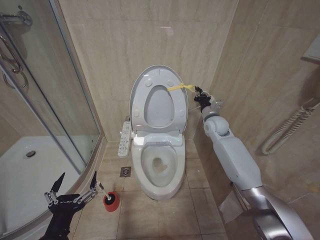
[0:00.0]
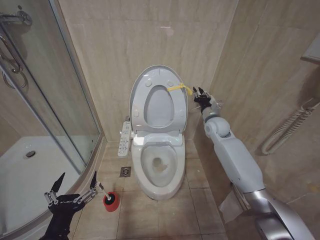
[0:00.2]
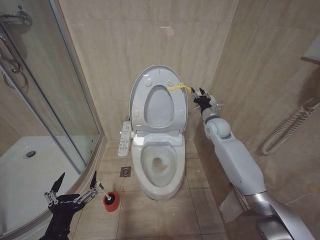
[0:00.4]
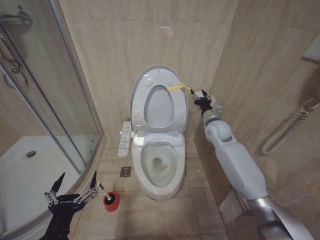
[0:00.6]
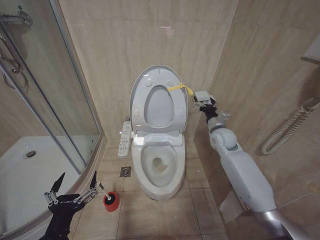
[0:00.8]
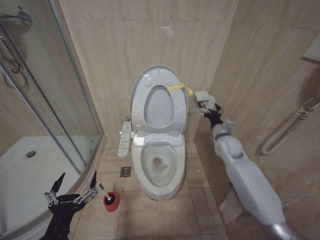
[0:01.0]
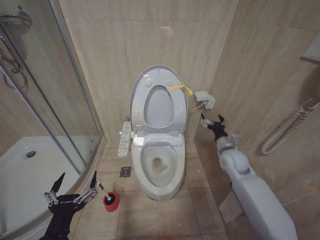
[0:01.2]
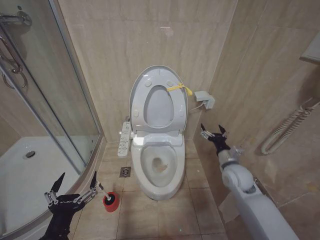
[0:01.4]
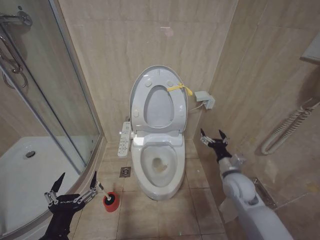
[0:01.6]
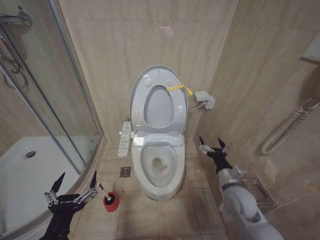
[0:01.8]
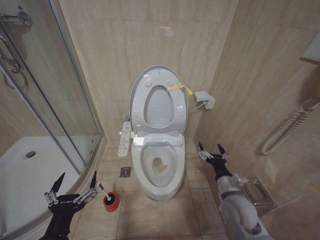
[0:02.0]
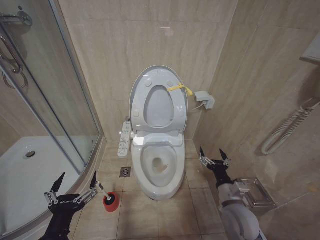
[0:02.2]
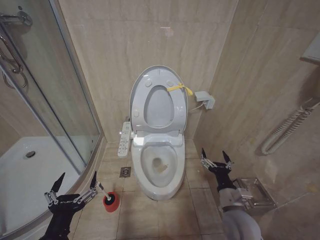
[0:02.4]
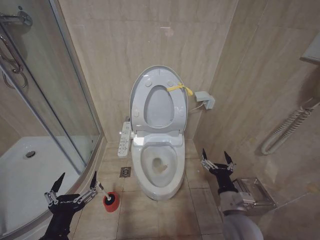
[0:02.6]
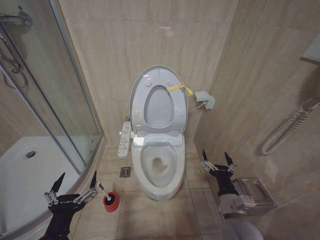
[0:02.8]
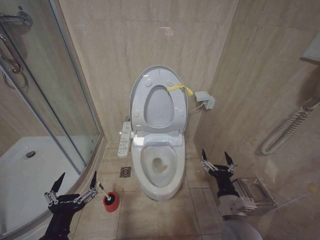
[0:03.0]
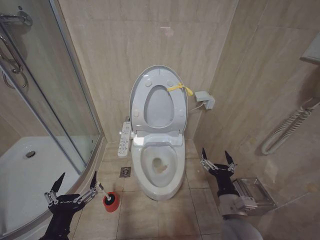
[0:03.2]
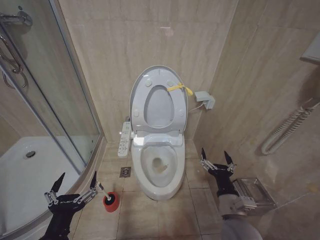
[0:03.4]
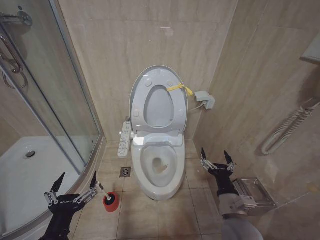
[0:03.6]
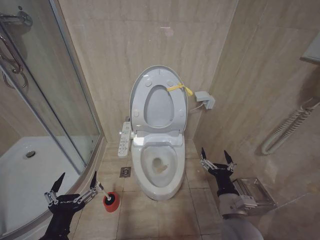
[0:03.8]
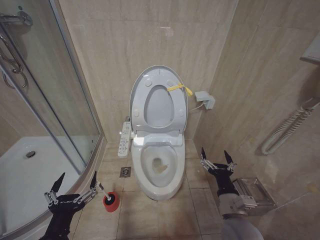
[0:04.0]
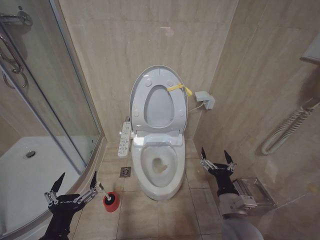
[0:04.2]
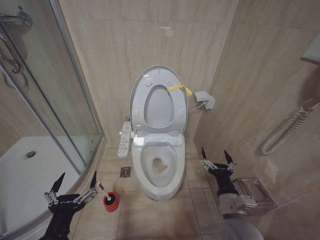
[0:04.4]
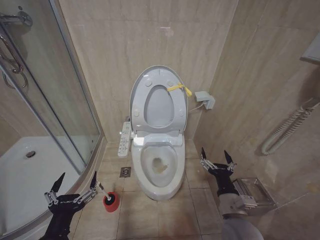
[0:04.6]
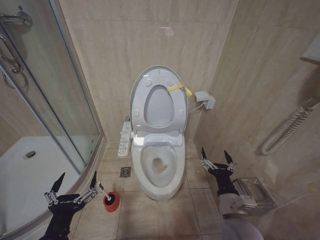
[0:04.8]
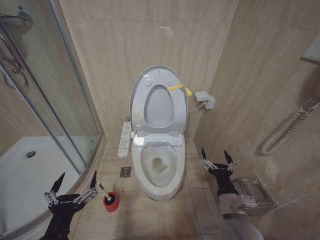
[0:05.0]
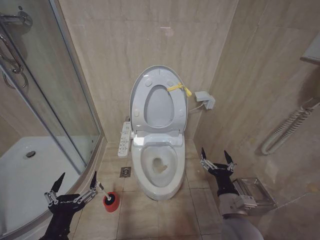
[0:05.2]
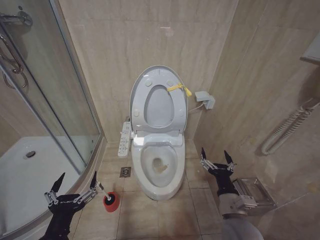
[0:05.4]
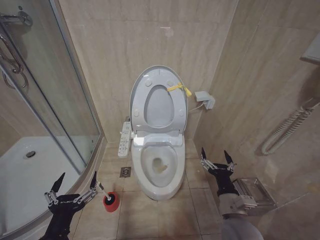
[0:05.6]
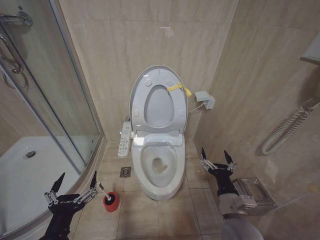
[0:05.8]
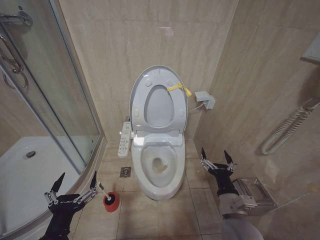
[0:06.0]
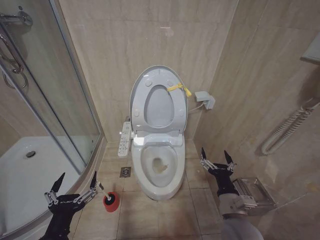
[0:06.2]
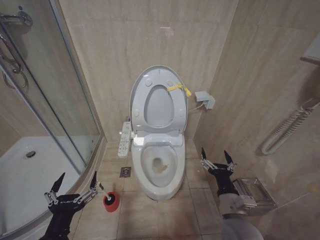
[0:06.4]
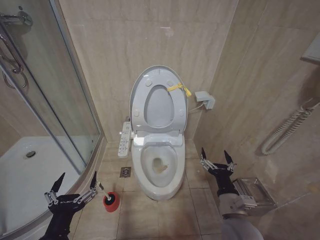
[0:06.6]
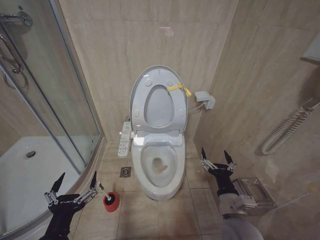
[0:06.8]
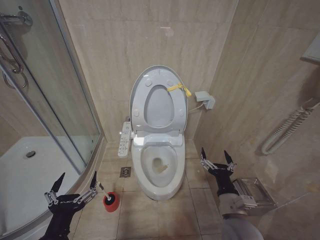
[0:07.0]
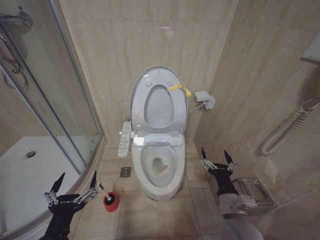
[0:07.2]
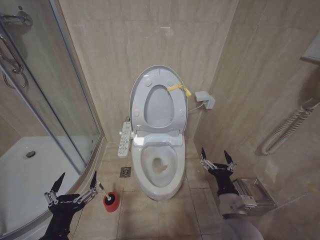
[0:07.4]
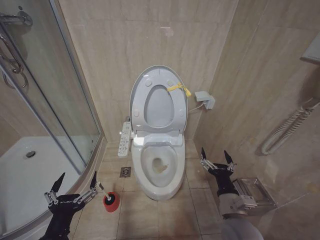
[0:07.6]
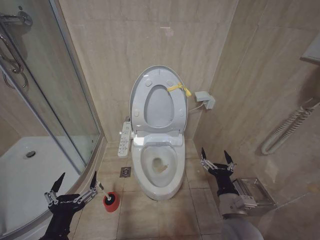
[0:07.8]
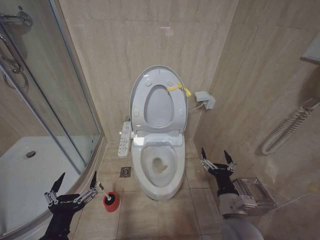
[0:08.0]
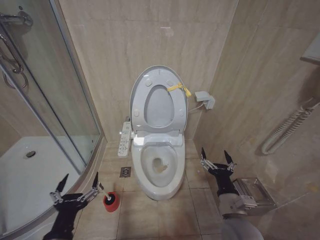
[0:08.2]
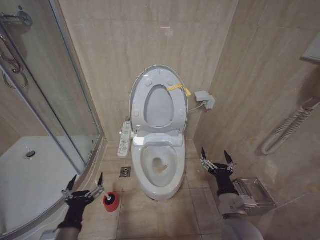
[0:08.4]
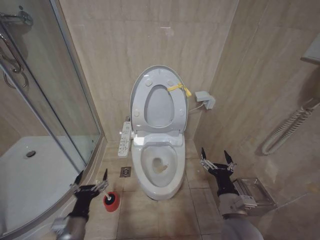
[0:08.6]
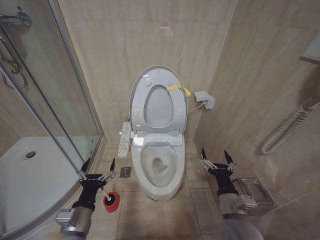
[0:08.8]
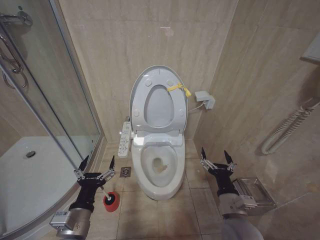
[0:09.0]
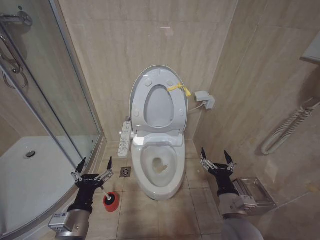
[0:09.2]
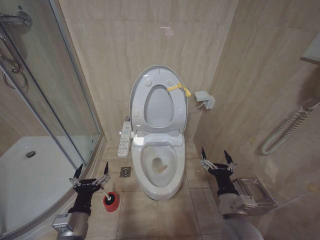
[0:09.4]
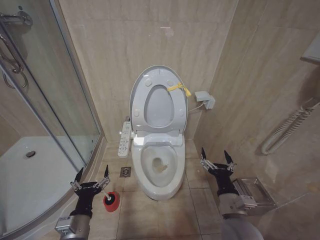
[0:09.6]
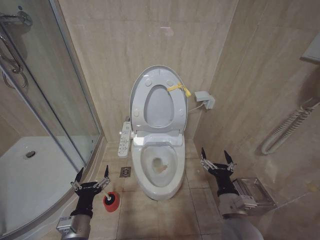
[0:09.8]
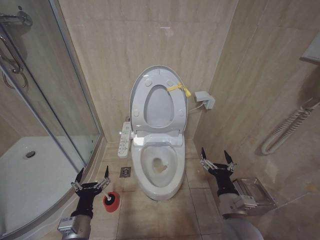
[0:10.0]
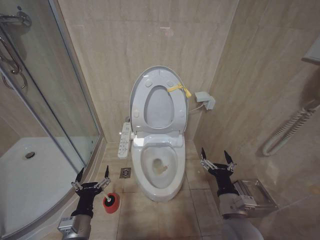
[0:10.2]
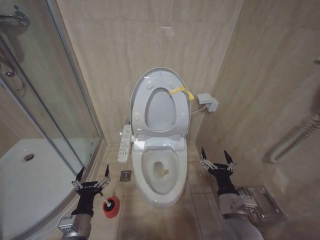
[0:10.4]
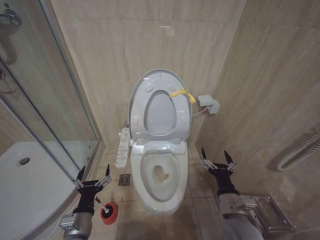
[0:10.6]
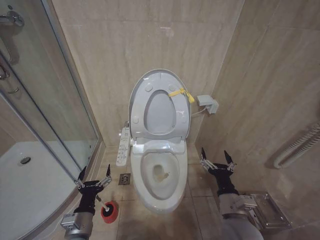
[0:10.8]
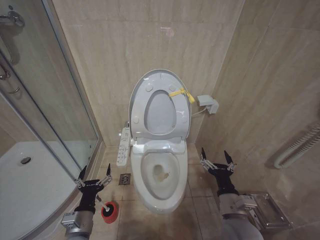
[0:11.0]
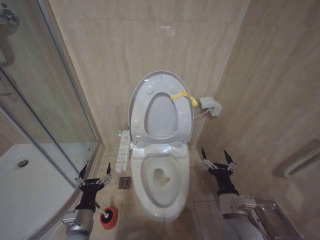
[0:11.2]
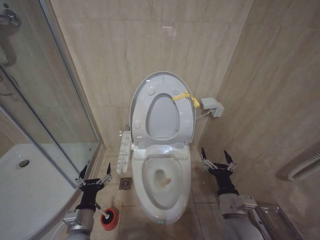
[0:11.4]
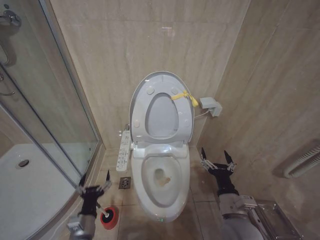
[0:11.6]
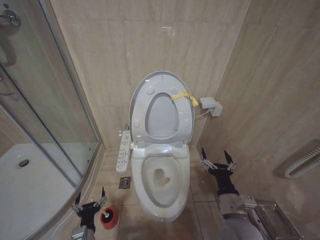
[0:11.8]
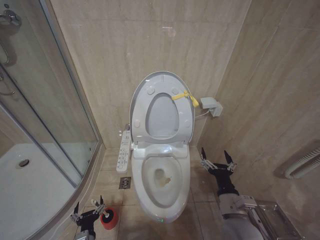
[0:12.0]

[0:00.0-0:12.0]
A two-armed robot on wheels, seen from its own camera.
Task of the whole recording: Open the toilet lid, clean the toilet bowl with a toilet brush, close the toilet lid, and flush.
0:00.0 to 0:01.6: The right gripper shifts approximately 25 cm backward and downward, and opens up.
0:01.6 to 0:03.0: The right gripper travels backward and to the left by roughly 15 cm.
0:03.0 to 0:07.6: Both grippers stay about where they are.
0:07.6 to 0:09.0: The left gripper travels forward by approximately 10 cm.
0:09.0 to 0:10.4: The left gripper travels downward by roughly 5 cm.
0:10.4 to 0:12.0: The left gripper is displaced downward by approximately 15 cm.

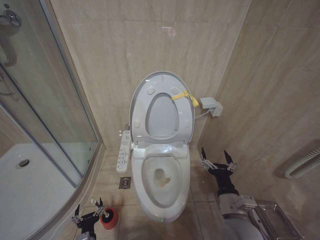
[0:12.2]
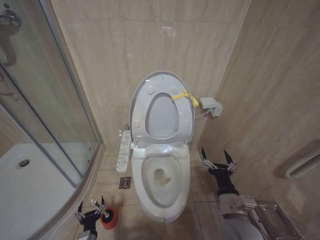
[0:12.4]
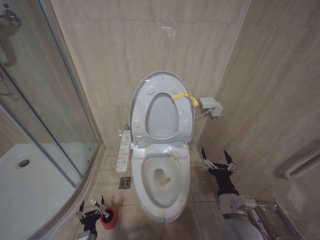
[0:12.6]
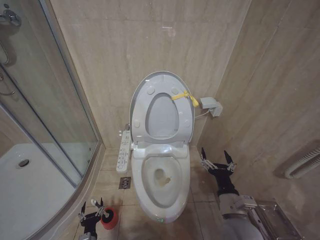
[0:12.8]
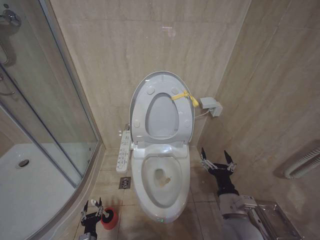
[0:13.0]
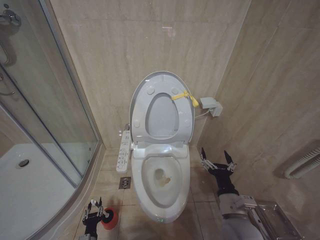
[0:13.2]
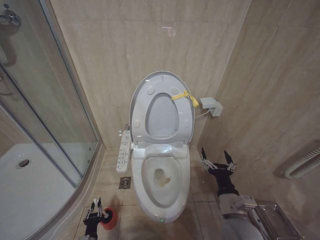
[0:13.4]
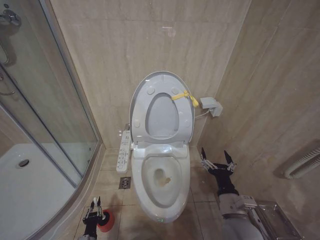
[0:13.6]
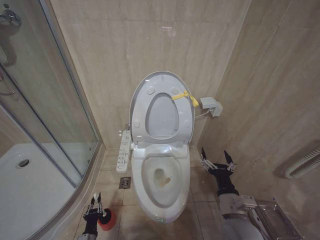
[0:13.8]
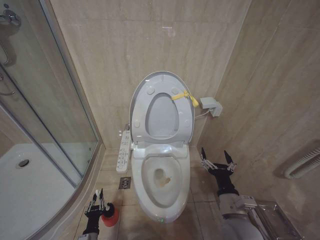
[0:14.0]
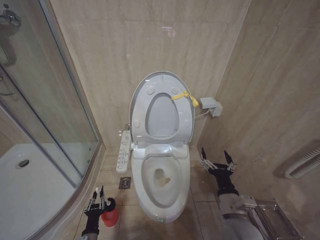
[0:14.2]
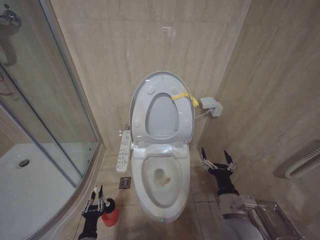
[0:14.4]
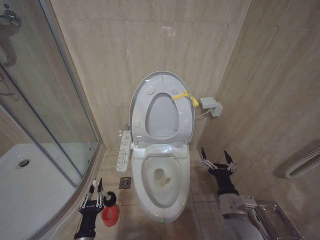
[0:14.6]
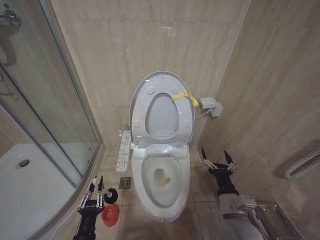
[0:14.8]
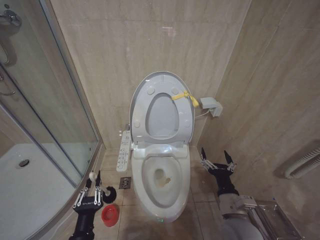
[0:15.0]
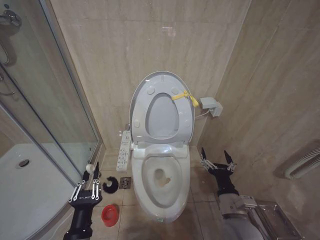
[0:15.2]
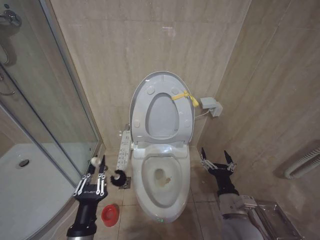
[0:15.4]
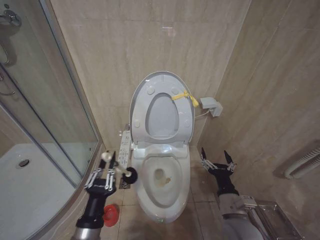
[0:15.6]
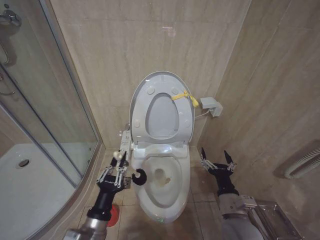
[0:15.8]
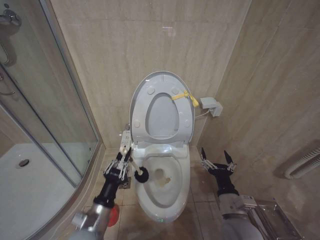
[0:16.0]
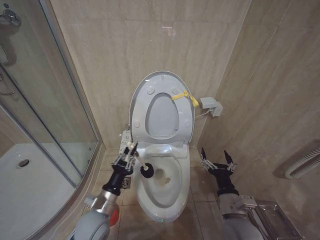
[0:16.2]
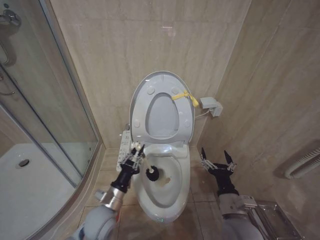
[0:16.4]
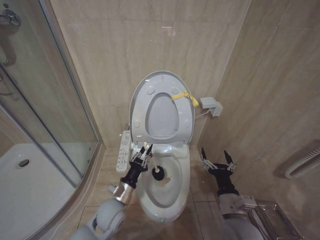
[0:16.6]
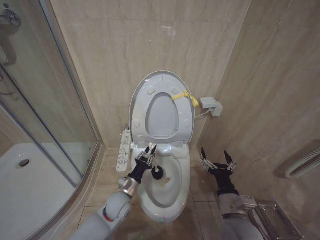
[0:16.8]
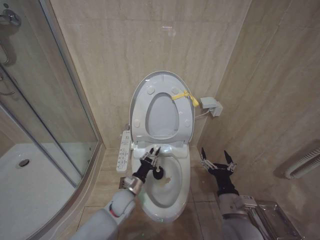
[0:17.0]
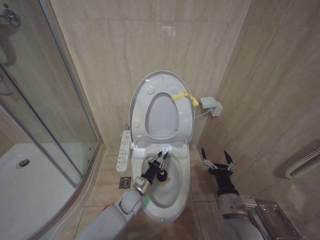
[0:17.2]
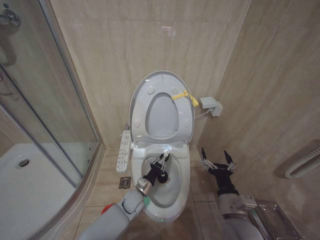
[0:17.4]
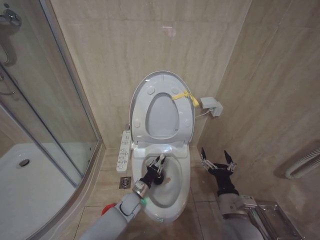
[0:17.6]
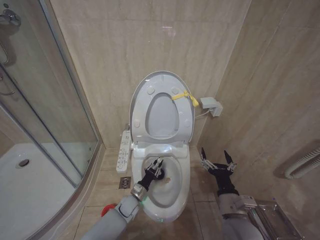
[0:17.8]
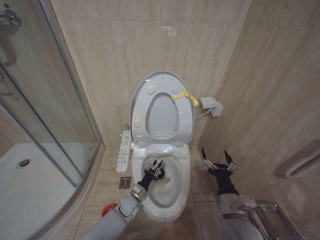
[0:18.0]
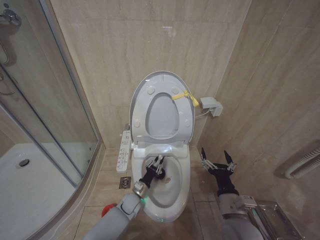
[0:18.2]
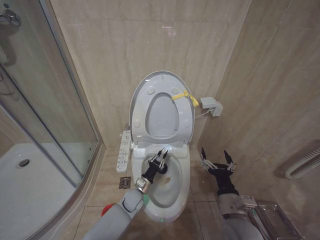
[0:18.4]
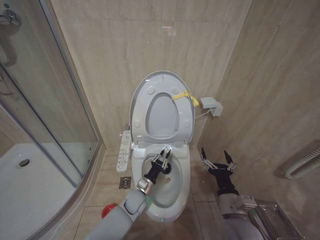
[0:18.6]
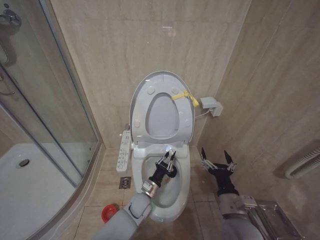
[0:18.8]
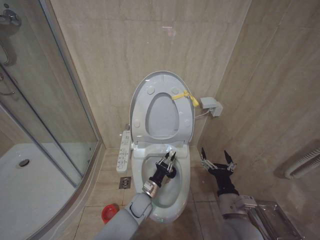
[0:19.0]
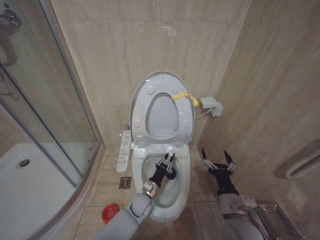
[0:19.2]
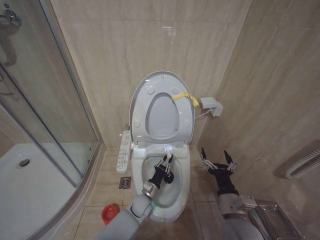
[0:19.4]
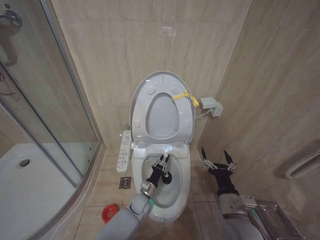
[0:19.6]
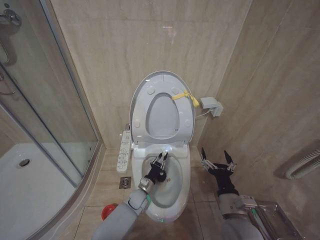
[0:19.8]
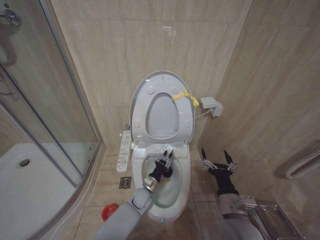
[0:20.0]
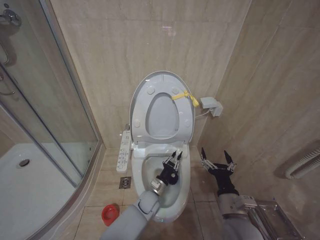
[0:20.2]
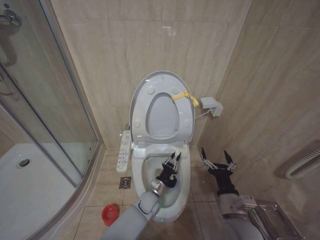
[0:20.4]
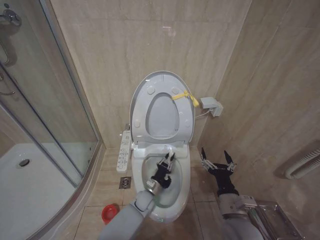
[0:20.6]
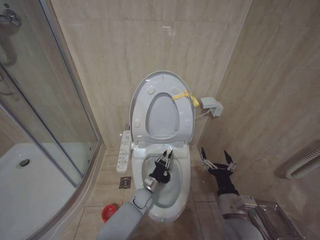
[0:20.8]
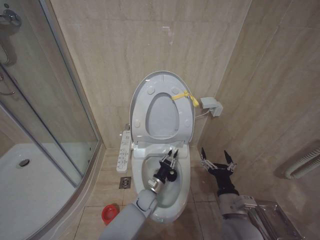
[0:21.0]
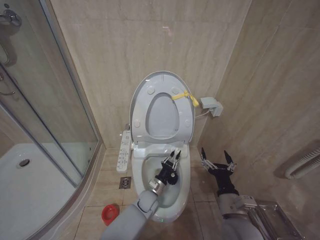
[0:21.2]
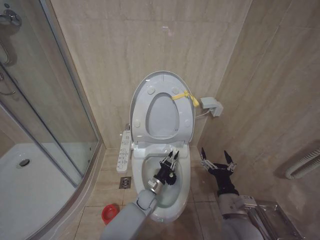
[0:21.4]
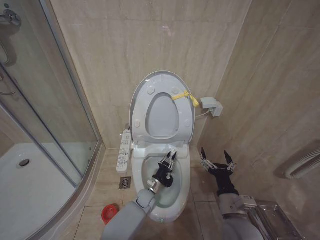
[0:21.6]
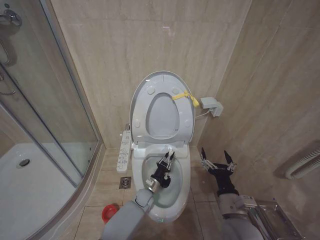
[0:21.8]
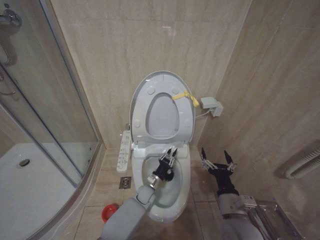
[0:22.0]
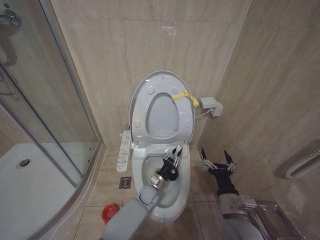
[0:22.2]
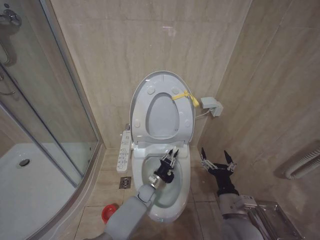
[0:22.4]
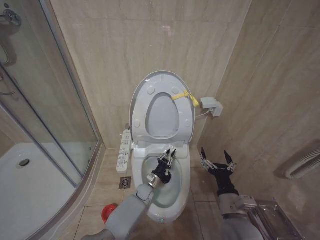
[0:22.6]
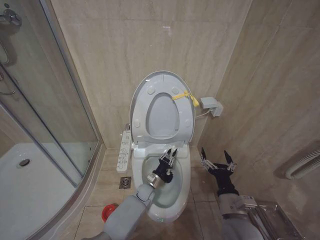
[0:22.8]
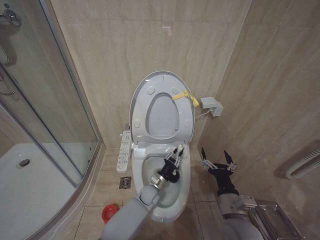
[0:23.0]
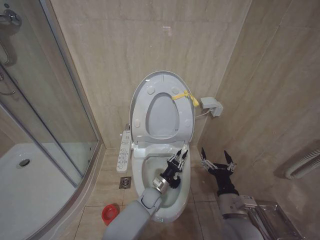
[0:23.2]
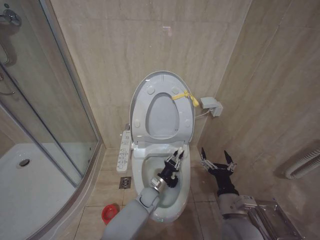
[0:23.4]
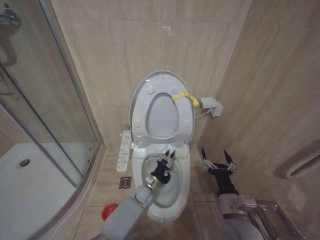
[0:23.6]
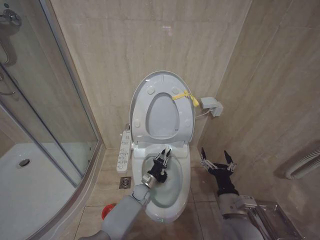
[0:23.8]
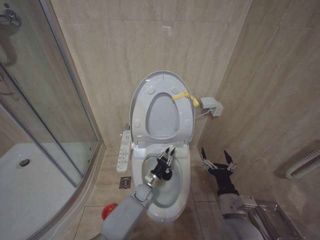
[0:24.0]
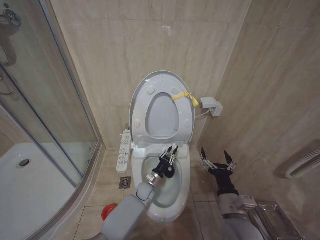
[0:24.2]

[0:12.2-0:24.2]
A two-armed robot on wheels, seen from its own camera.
Task of the whole recording: Open the toilet lid, clean the toilet bowl with a toilet brush, close the toilet lid, and flush.
0:12.2 to 0:13.8: The left gripper is displaced downward by about 10 cm, and closes up.
0:13.8 to 0:15.2: The left gripper moves upward, roughly 25 cm.
0:15.2 to 0:16.6: The left gripper shifts about 15 cm forward.
0:16.6 to 0:18.2: The left gripper shifts roughly 20 cm downward and forward.
0:19.8 to 0:21.2: The left gripper is displaced to the right by roughly 5 cm.
0:21.2 to 0:22.6: The left gripper moves forward, about 5 cm.
